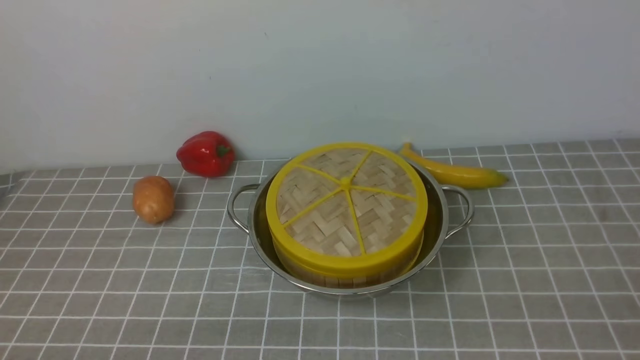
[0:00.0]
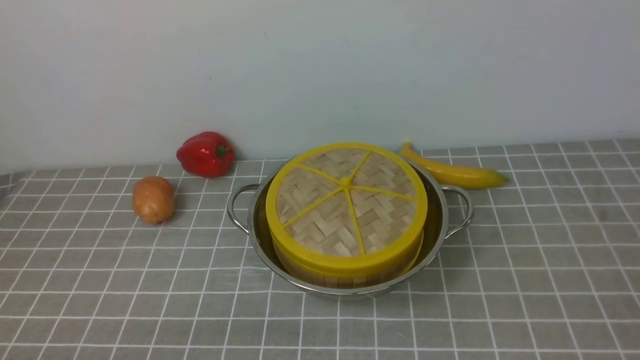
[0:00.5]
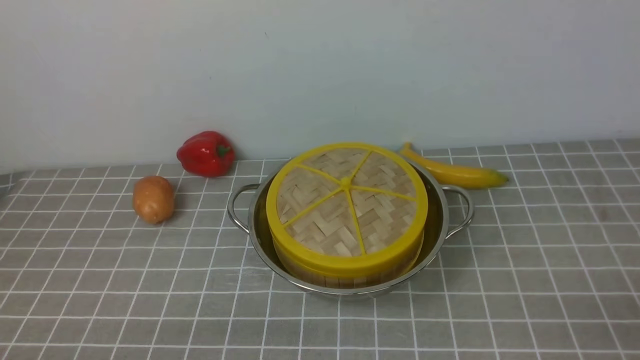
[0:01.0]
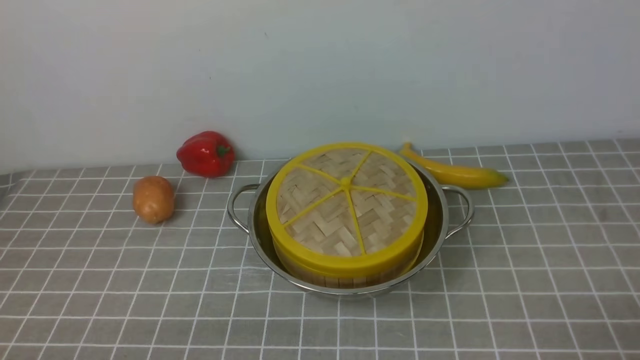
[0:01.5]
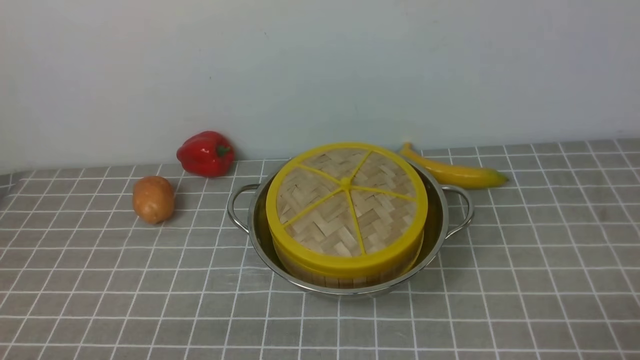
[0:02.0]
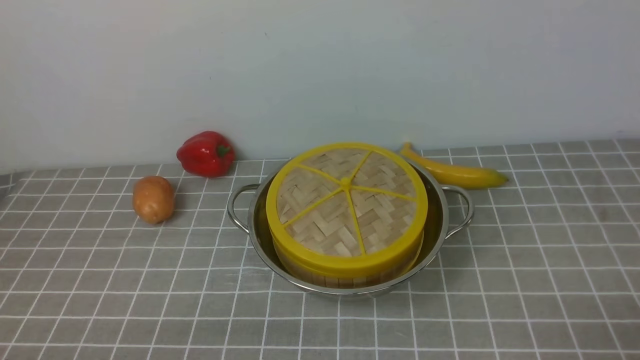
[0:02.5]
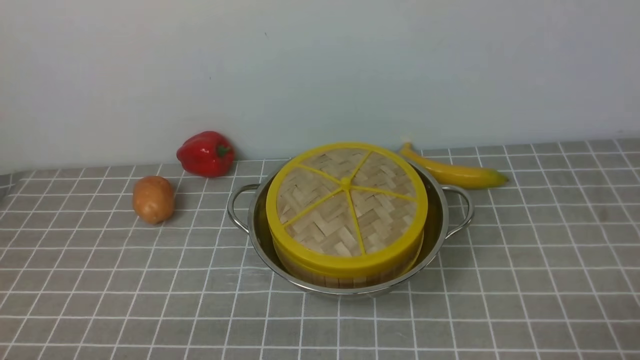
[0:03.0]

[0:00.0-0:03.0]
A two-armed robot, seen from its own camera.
Task of the whole recording: place the steamer in the pot on the grey tablecloth, and put the lid on the steamer.
0:01.5 to 0:03.0: The two grippers keep their place.

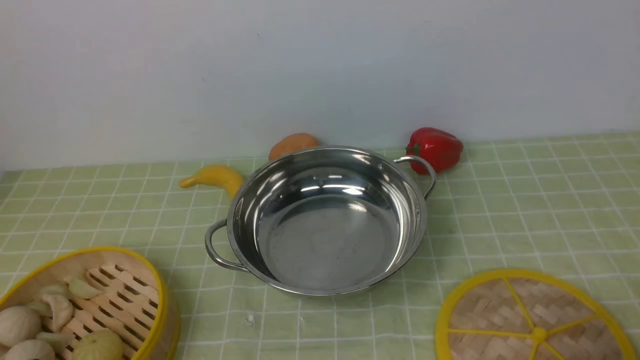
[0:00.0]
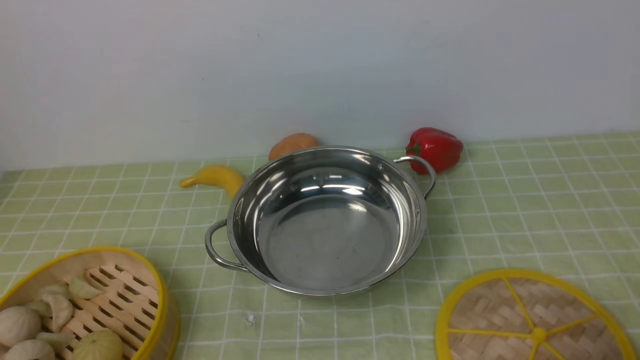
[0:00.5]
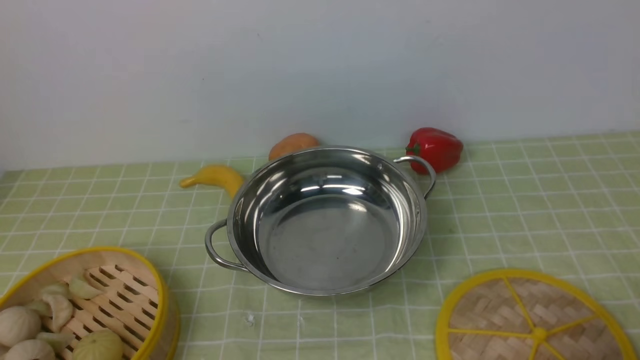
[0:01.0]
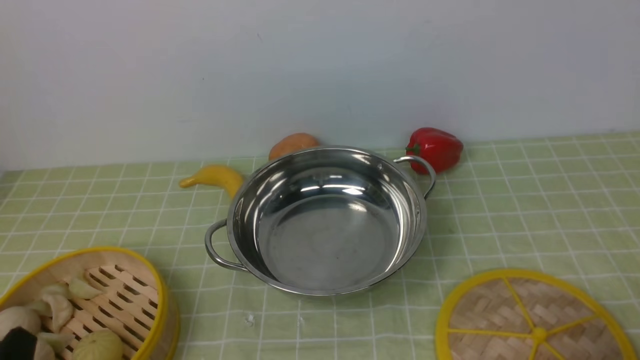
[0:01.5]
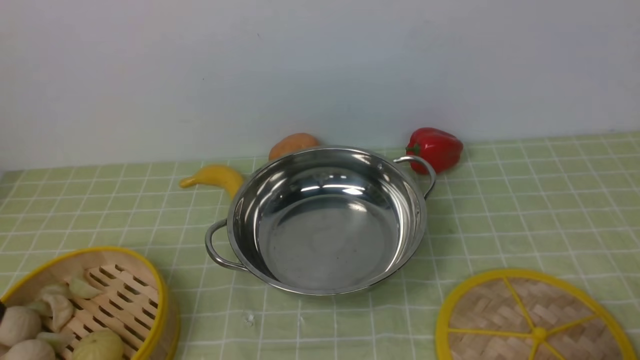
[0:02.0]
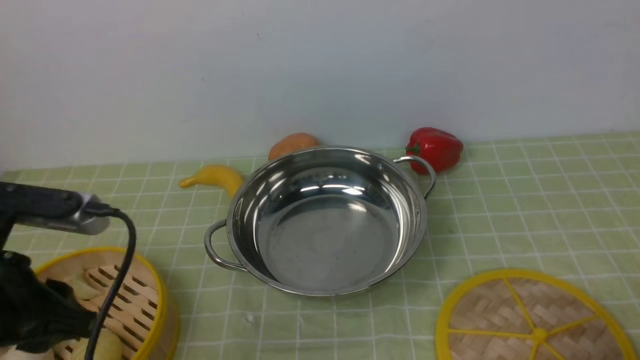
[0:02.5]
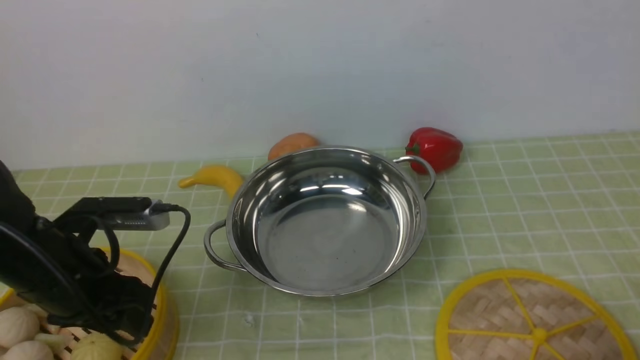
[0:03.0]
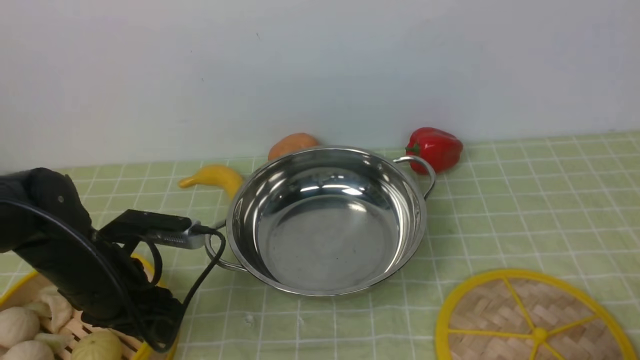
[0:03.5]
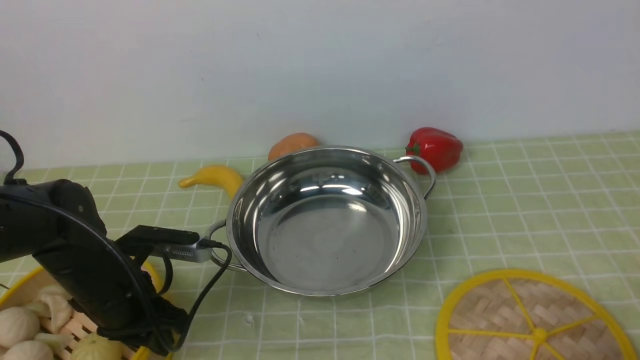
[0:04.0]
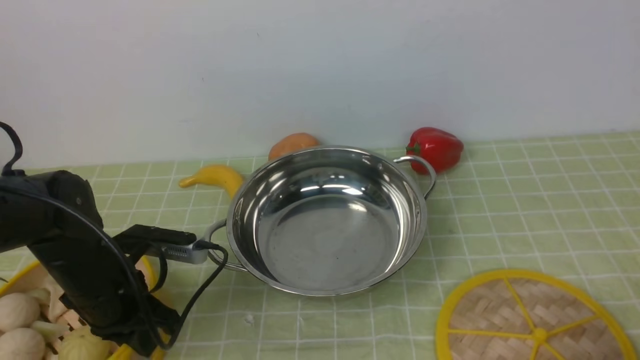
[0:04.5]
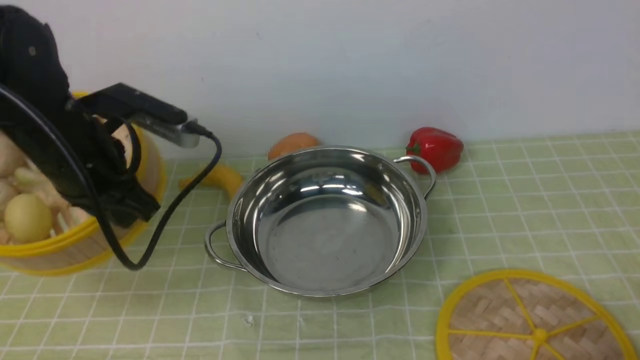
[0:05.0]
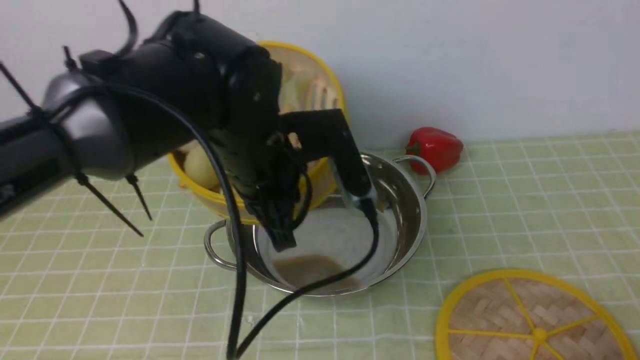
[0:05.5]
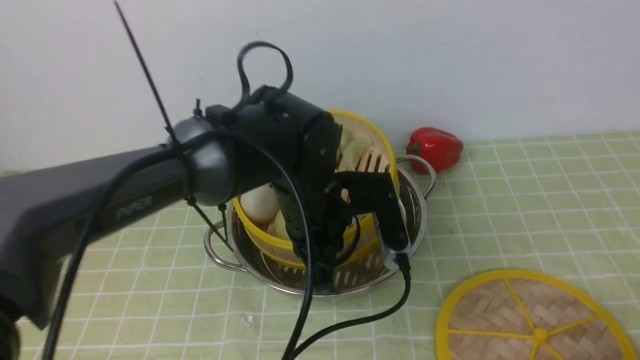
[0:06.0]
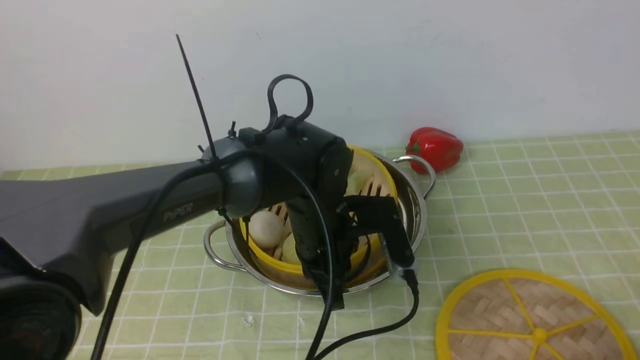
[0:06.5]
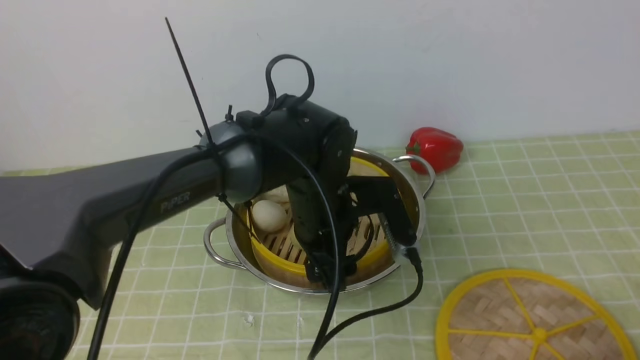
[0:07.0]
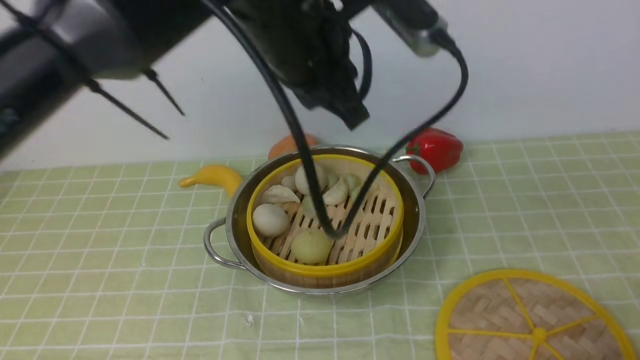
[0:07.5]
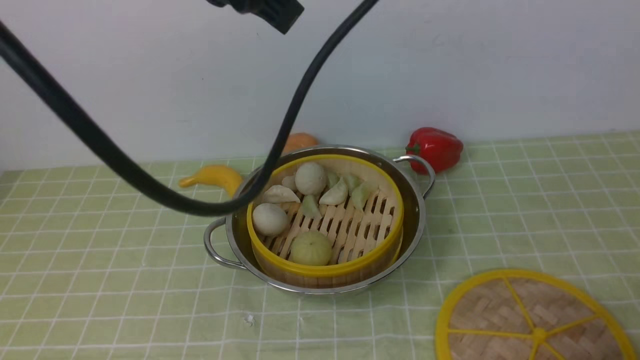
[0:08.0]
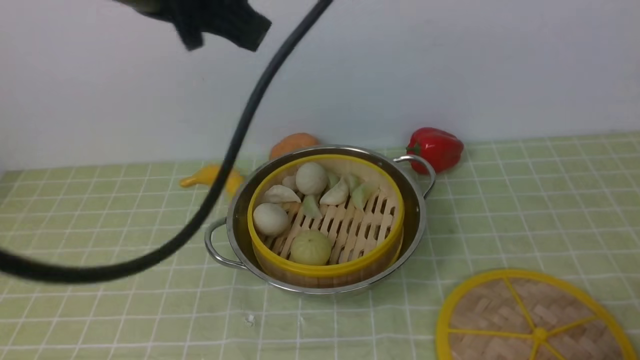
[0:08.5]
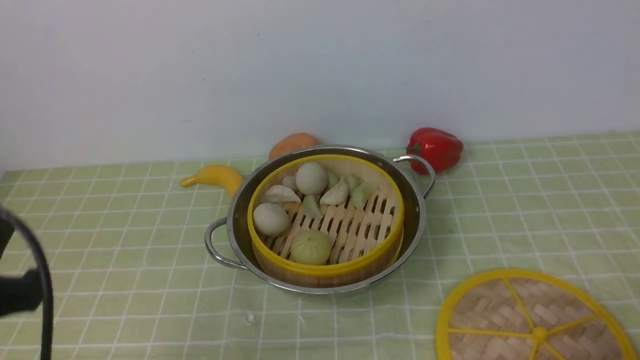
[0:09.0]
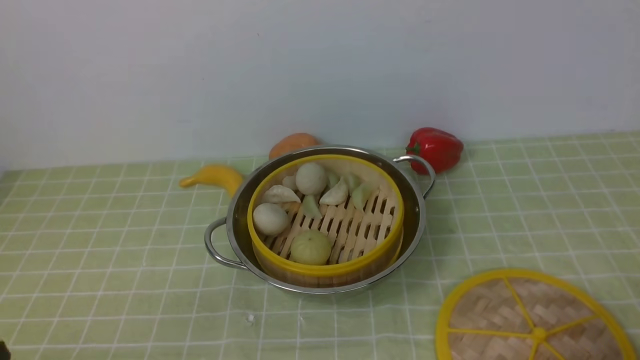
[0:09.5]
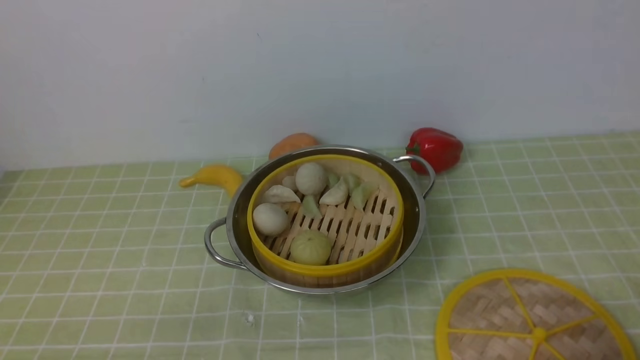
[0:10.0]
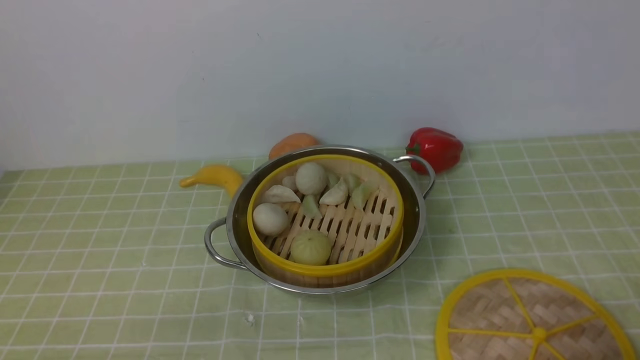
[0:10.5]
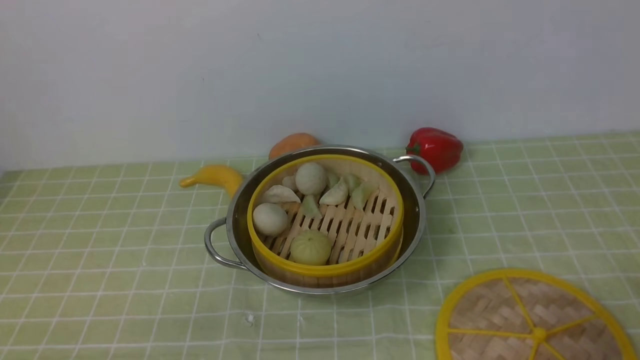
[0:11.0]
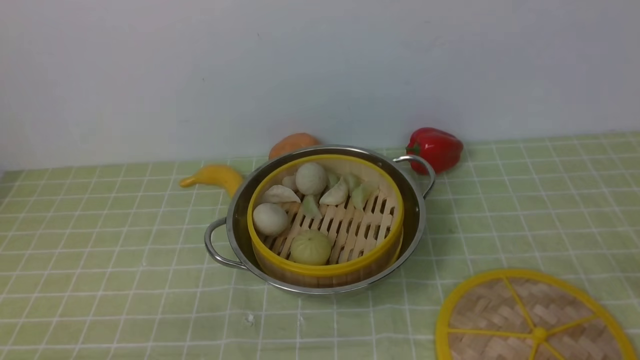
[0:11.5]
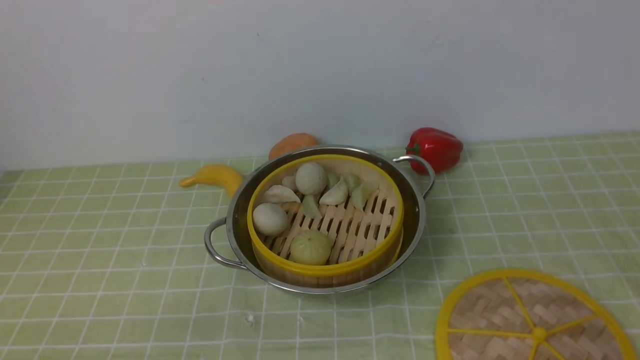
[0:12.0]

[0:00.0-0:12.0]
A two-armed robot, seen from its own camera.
Task of the whole recording: place the steamer in the pot on the green tablecloth, and put the lid on the steamer.
Step, 0:00.0 to 0:05.0: use the left arm to lift the steamer closest to it.
Step, 0:05.5 to 0:07.0: use the left arm to put the steamer into the iron steamer pot in the middle.
0:02.0 to 0:04.0: The left gripper shifts approximately 25 cm forward and downward.
0:04.0 to 0:06.0: The left gripper travels to the right by approximately 20 cm, and closes up.
0:06.0 to 0:08.0: The left gripper moves upward, approximately 25 cm, and opens, then closes once more.
0:08.0 to 0:10.0: The left gripper goes roughly 40 cm downward, backward and to the left.

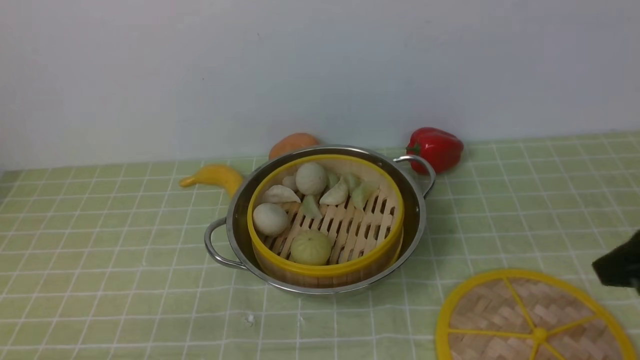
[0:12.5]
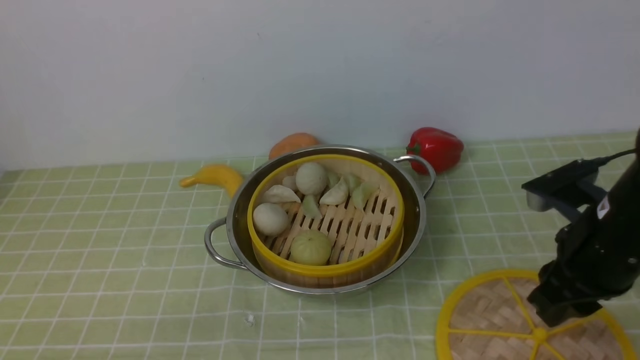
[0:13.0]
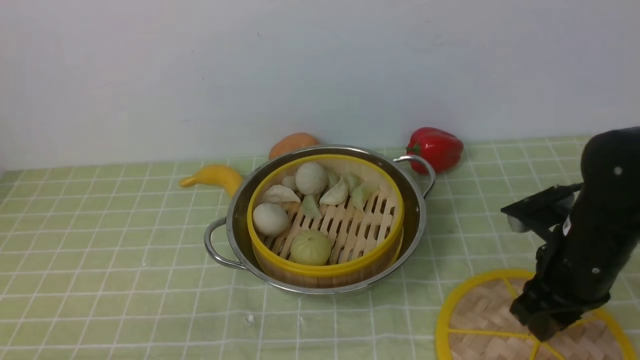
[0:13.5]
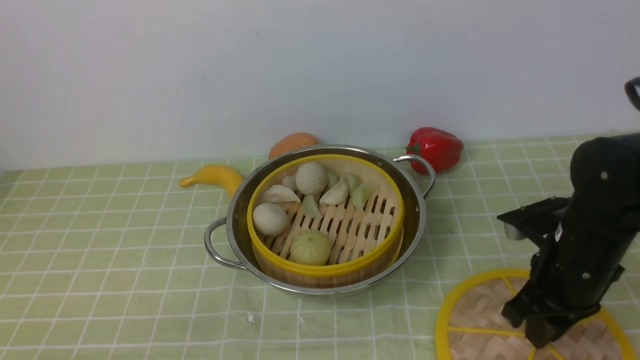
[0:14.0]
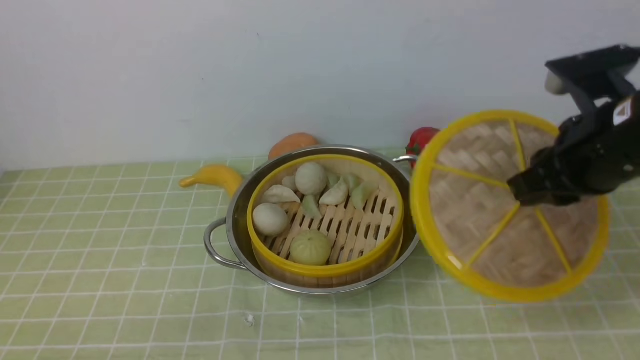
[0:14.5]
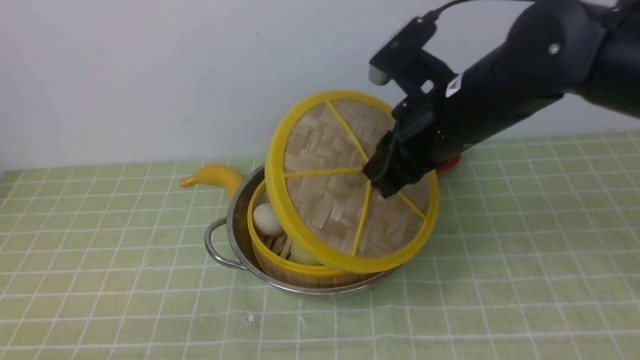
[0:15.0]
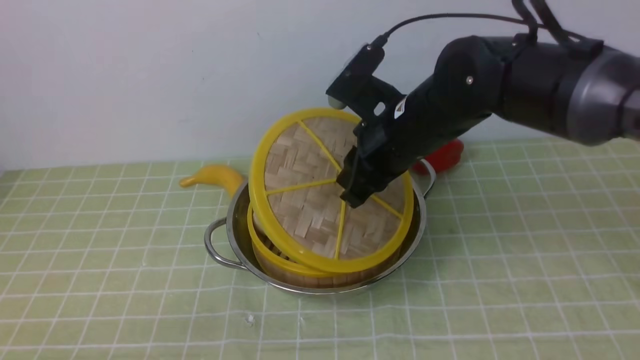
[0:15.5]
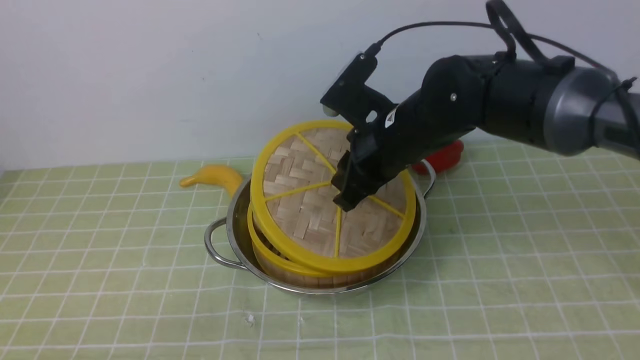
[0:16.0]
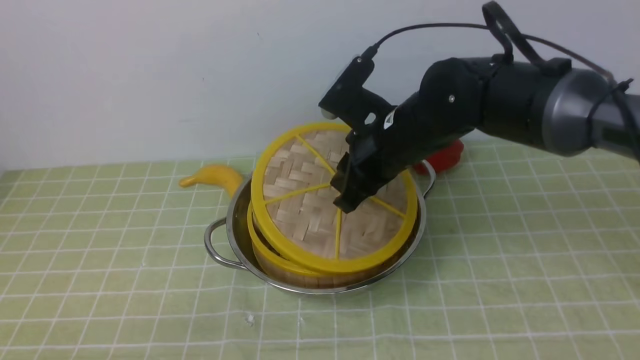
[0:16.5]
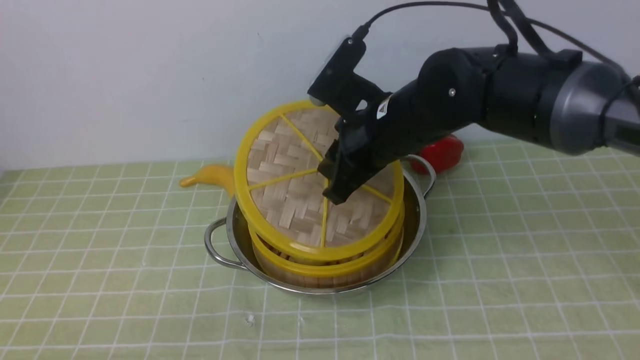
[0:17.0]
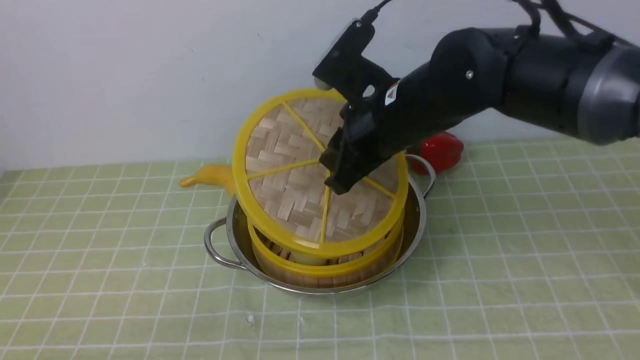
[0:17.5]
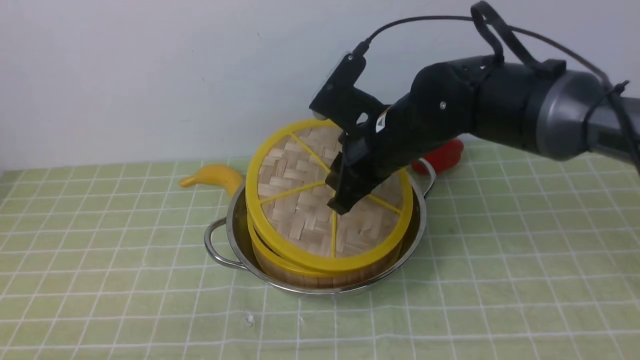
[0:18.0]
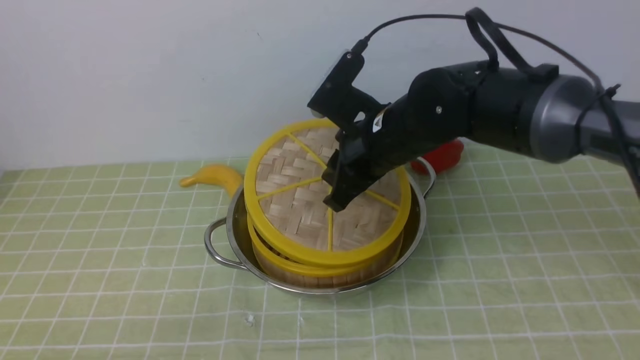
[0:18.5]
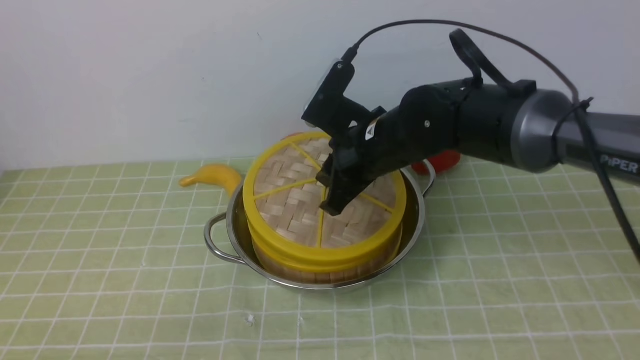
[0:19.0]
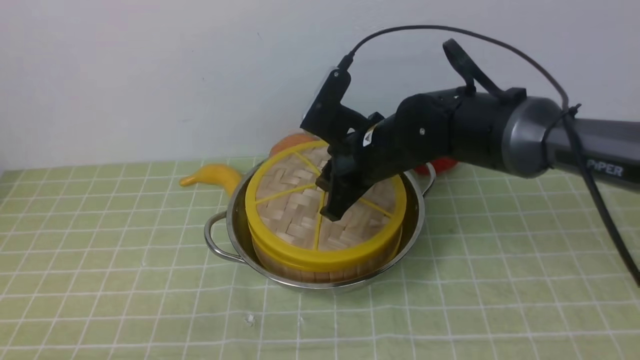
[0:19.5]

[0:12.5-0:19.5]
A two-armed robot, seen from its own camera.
Task of the whole recording: place the steamer in the pot on the green tablecloth, and put the lid on the steamer.
Step, 0:12.5 to 0:14.5: use the right arm to lift the lid of the steamer.
0:12.5 to 0:14.5: The right gripper is displaced forward and to the left by about 10 cm, travels downward and back again, some 15 cm each way, and closes up.
0:14.5 to 0:16.0: The right gripper is displaced to the left and forward by roughly 20 cm.
0:16.0 to 0:17.5: There are only small adjustments of the grippers.
0:17.5 to 0:19.5: The right gripper moves downward, some 5 cm.
